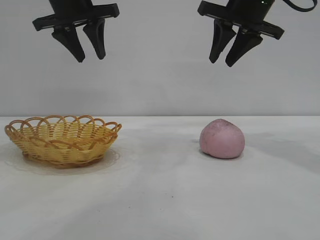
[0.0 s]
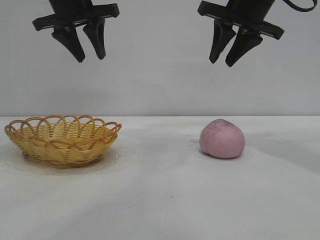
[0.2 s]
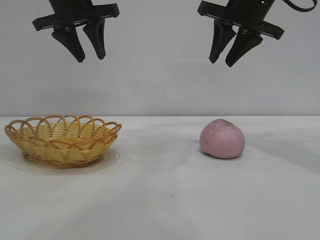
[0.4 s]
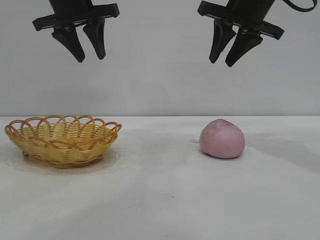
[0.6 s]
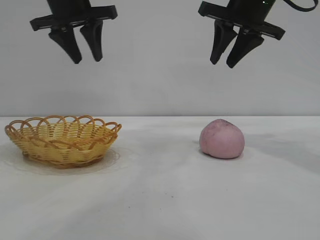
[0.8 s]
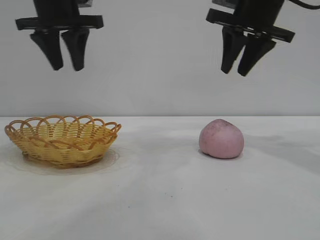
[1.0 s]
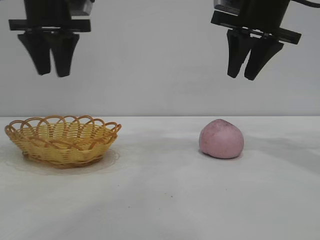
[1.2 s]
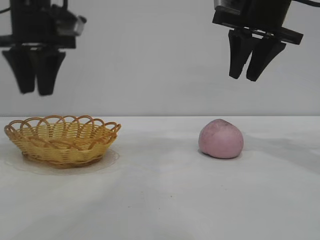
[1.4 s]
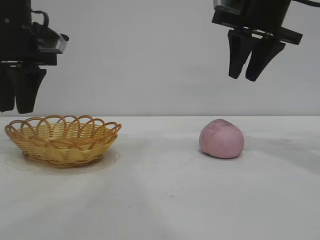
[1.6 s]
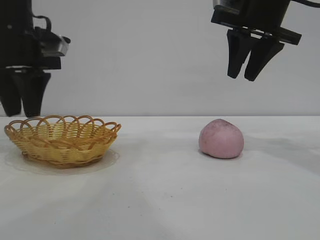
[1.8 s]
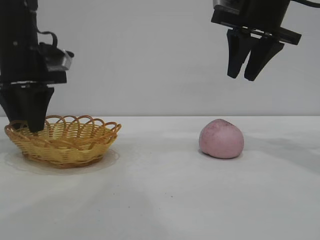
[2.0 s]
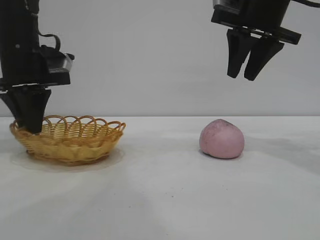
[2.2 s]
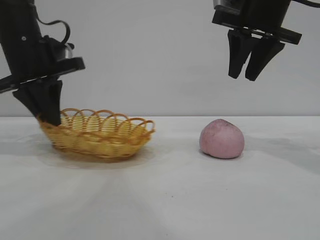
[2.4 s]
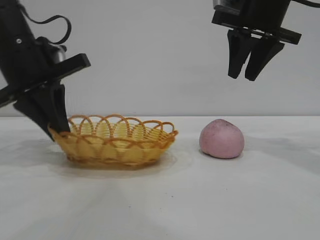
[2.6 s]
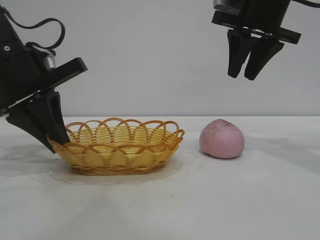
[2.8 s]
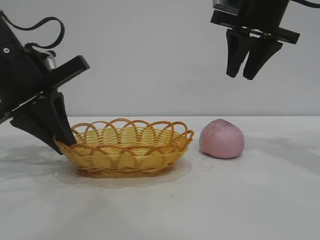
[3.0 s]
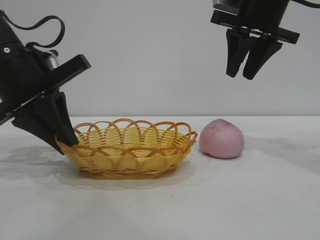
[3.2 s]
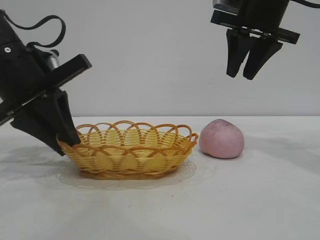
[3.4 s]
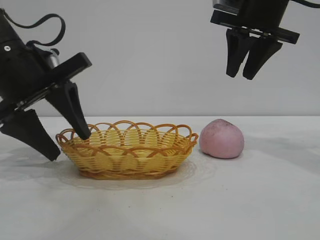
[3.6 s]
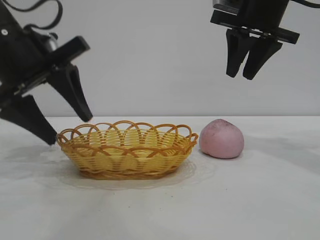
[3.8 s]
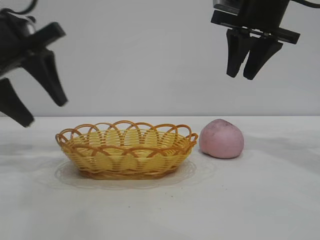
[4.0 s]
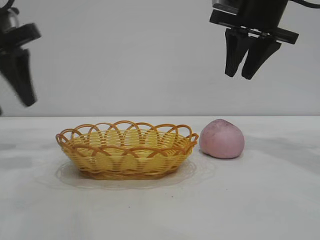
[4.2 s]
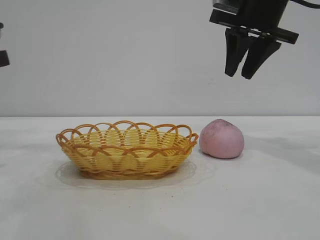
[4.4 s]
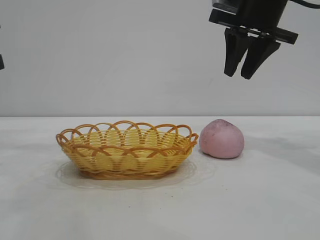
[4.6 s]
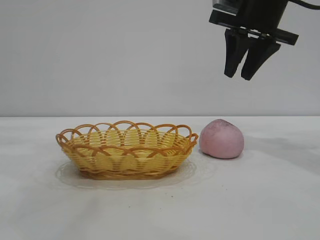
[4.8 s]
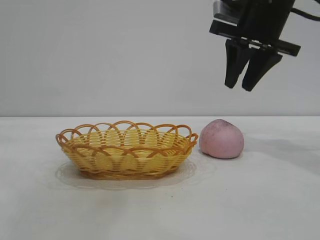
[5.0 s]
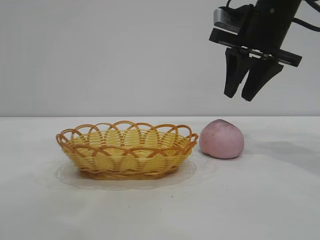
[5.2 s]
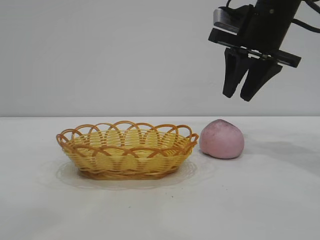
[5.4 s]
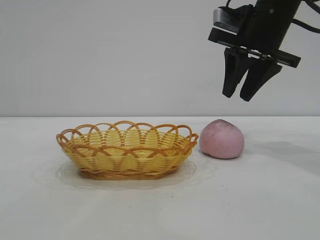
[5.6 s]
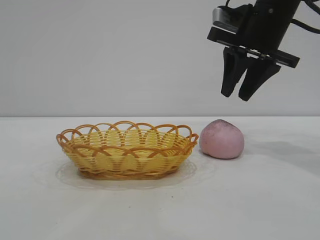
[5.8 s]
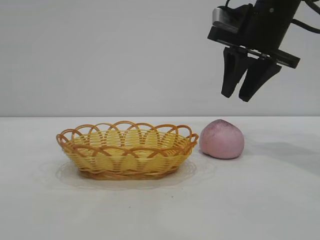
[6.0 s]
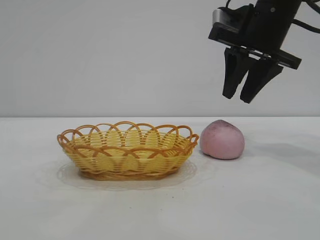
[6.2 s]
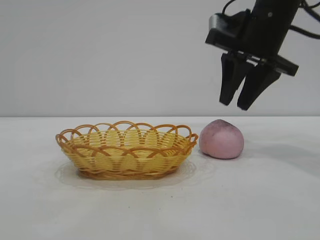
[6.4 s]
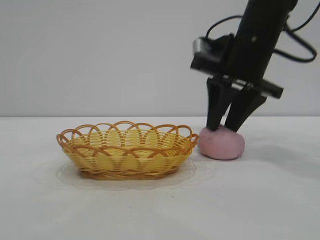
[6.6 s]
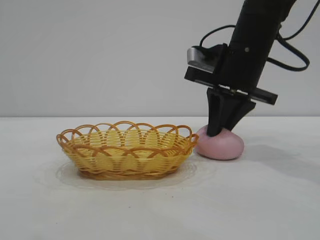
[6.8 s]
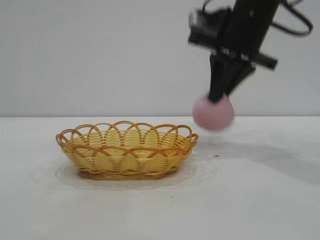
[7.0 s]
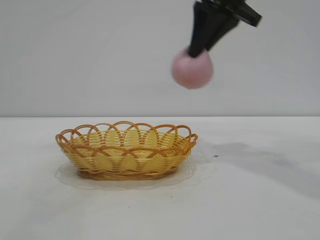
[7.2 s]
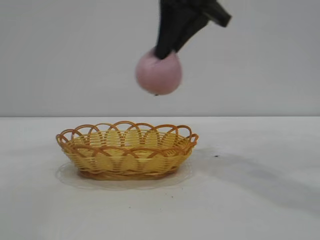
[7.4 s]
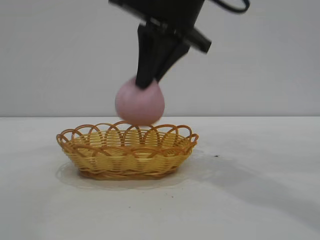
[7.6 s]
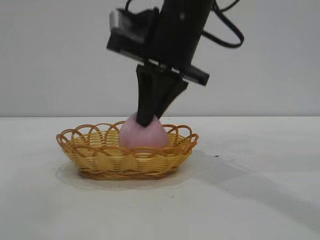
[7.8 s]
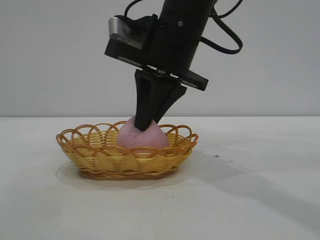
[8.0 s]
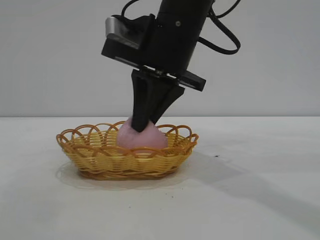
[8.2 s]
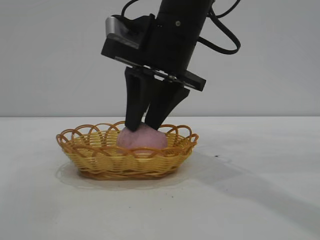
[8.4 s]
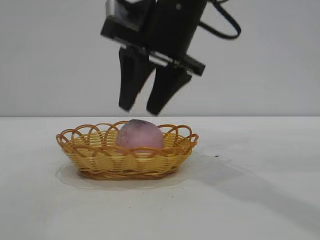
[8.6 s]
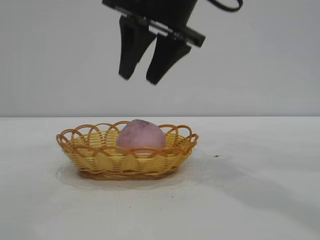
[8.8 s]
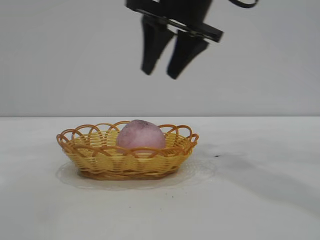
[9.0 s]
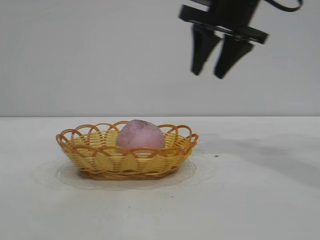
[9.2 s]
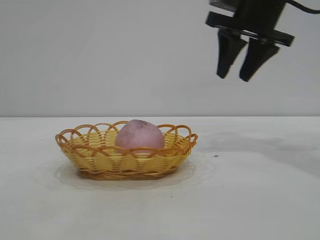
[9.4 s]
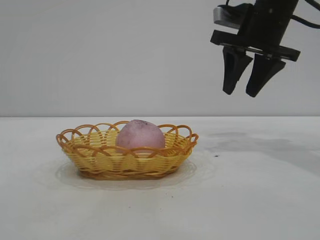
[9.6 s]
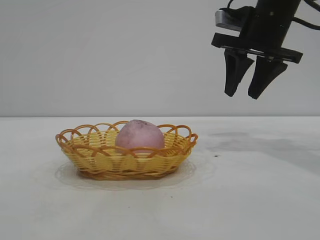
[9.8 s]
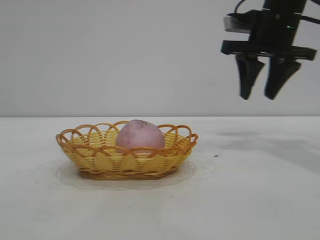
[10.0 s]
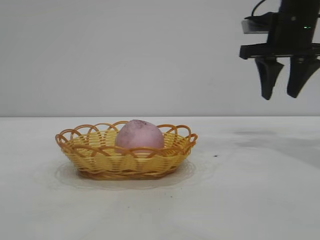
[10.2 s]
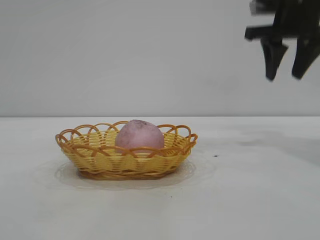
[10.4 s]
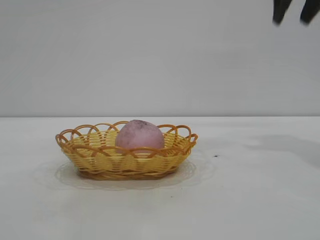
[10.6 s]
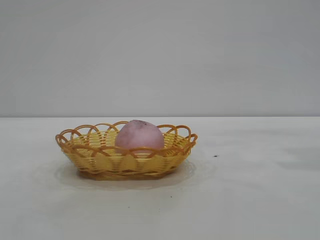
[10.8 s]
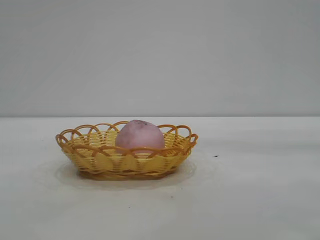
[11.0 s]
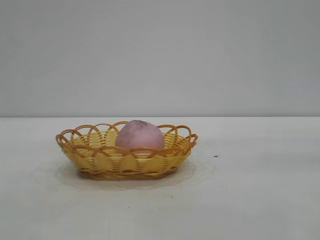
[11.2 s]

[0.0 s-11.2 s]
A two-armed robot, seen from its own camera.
Task of the whole recording: pick up the peach and put it into the basket.
Step, 0.0 to 3.8 s: Move the basket to the center of view.
Step, 4.0 to 6.8 s: Pick up the peach.
Step, 7.0 to 8.8 s: place the peach into the basket.

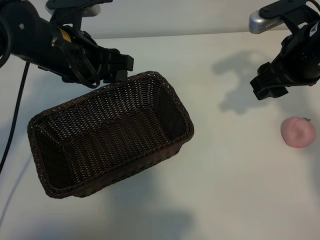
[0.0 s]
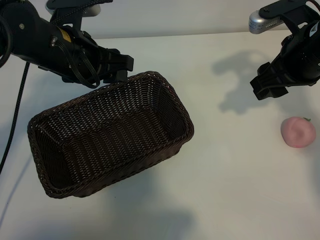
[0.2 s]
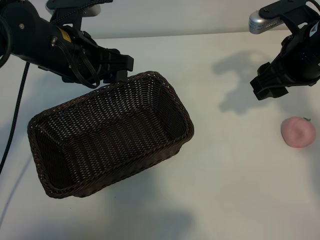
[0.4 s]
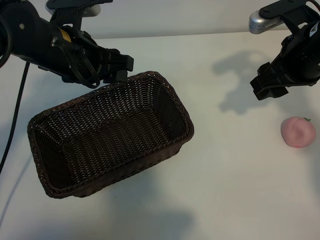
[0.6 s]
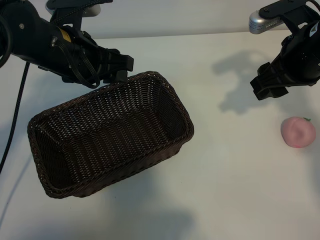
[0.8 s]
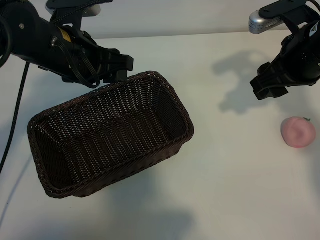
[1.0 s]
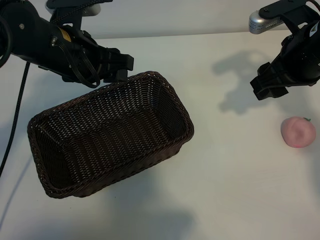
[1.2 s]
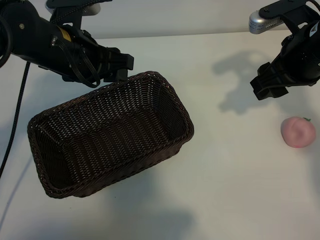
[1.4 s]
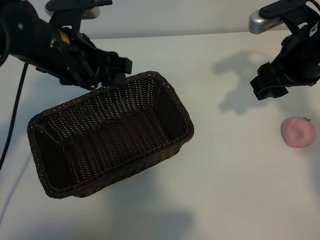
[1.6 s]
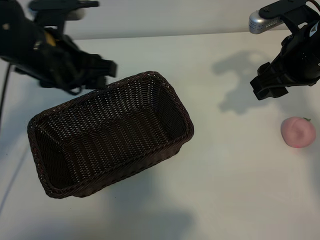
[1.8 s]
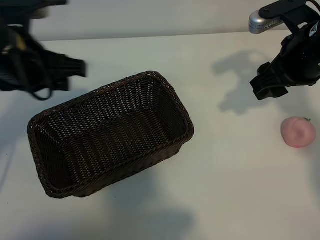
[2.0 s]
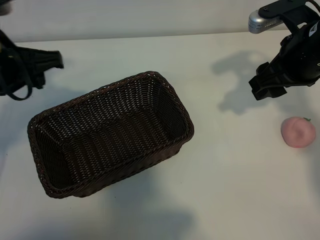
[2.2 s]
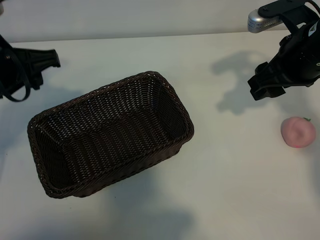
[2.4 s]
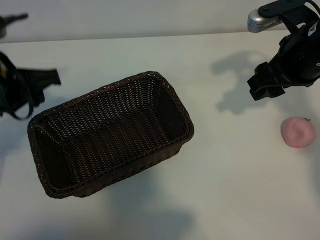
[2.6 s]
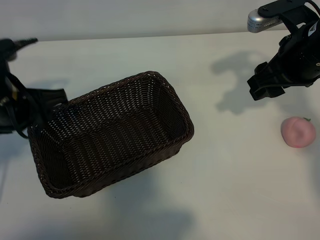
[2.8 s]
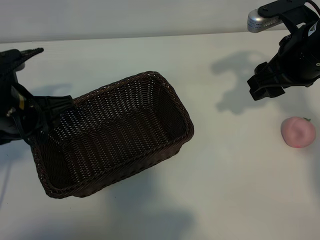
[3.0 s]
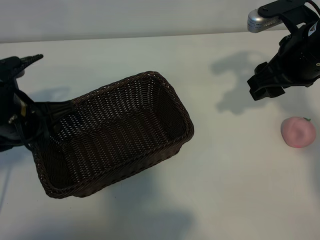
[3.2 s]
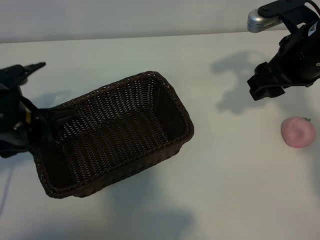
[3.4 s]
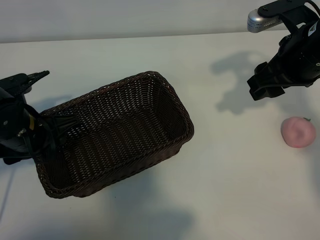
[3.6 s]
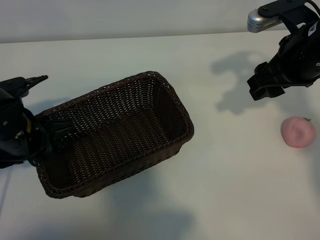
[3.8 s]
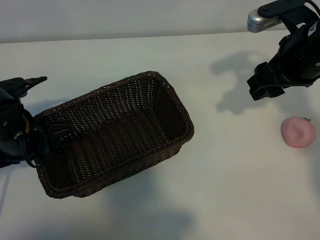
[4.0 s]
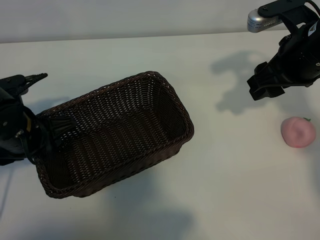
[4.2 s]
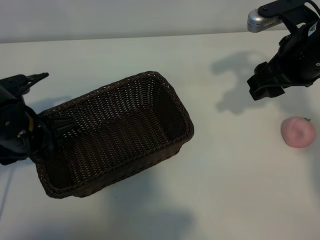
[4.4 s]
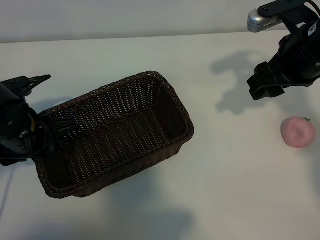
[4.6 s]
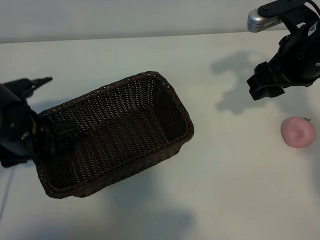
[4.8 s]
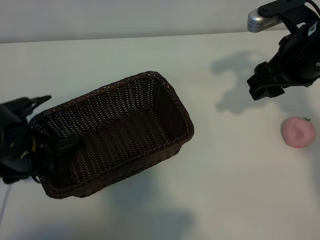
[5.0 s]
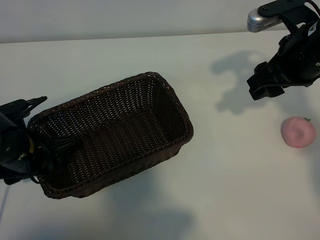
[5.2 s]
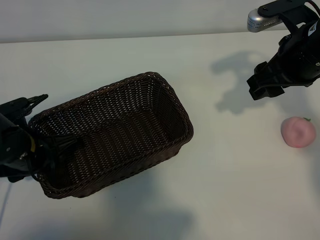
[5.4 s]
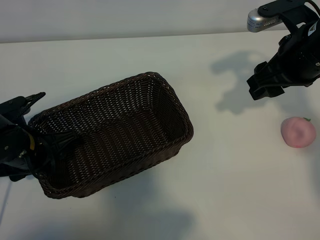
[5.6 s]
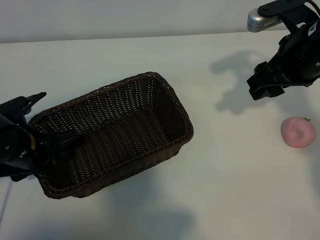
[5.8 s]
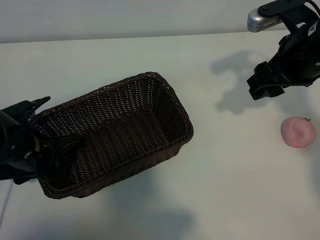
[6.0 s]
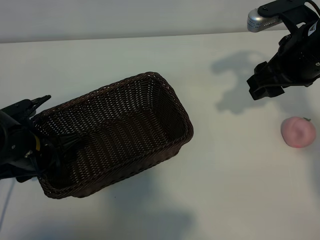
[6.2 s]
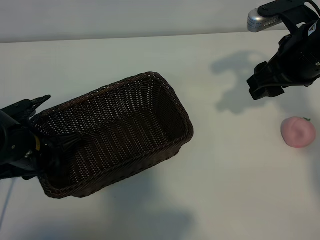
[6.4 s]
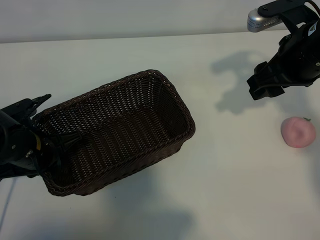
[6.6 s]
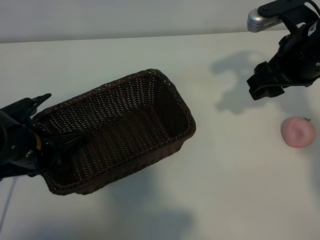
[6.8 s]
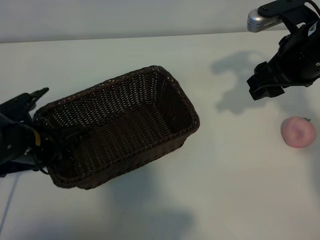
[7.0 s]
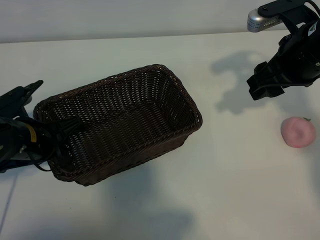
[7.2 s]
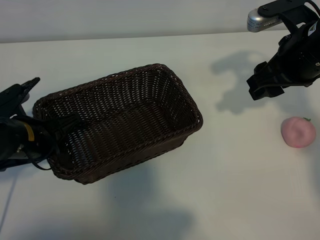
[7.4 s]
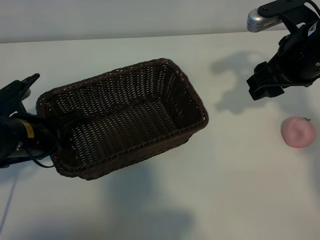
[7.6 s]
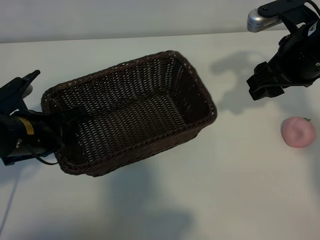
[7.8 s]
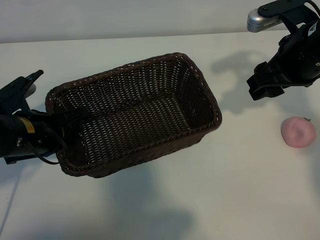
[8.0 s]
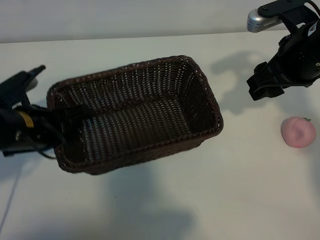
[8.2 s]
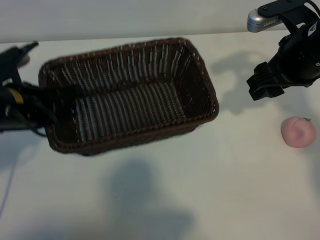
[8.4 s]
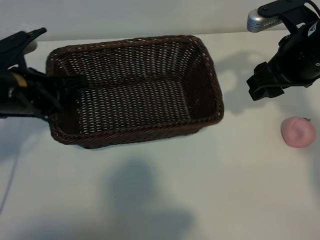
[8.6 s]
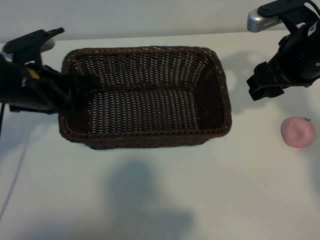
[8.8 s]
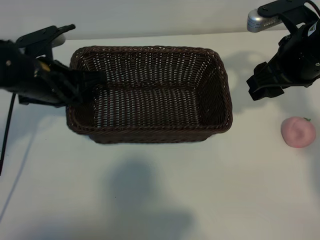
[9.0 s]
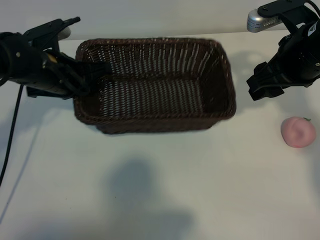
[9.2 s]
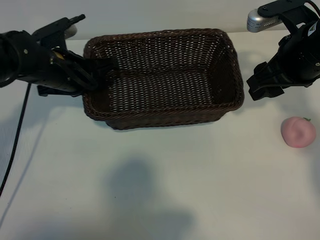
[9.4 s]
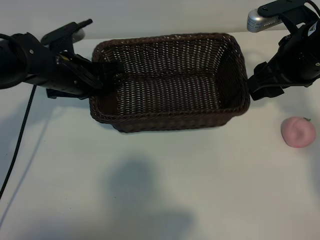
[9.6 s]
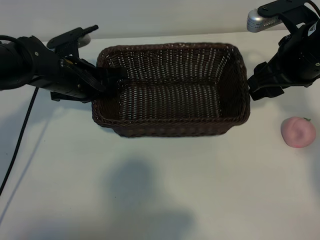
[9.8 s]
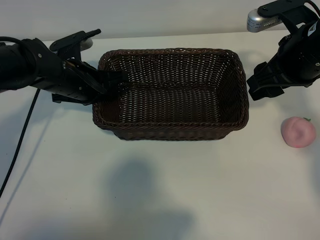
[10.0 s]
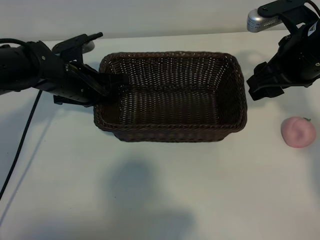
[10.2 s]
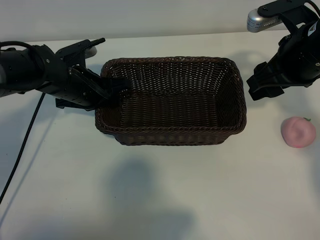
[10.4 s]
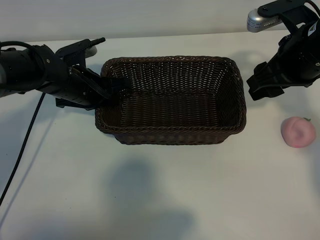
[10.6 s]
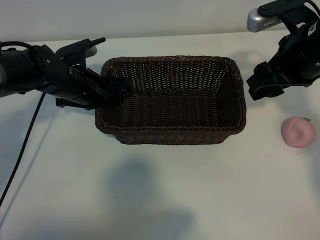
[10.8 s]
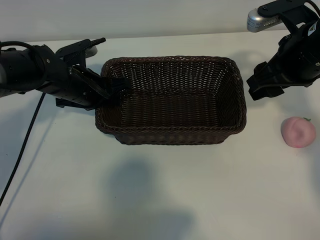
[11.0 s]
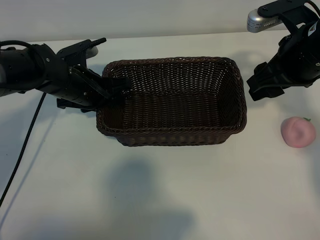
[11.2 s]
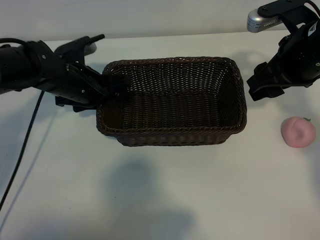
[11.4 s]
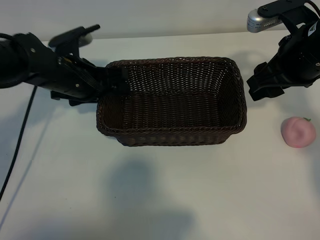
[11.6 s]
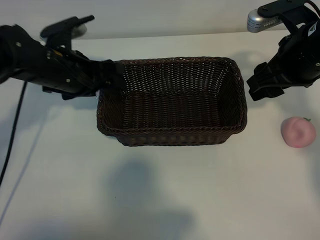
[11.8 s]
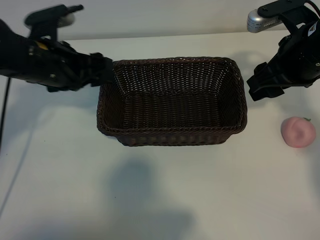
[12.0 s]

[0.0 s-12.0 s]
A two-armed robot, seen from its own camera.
Task of the whole recording: pick up the peach and put it into the basket.
Step, 1.6 to 6.6 s: Grasp the basket with left gripper.
Step, 6.8 to 11.8 s: Place the basket in the center of view with left gripper.
